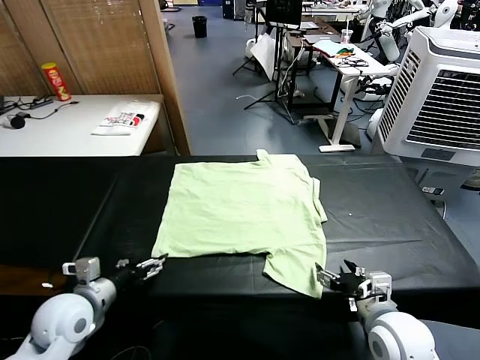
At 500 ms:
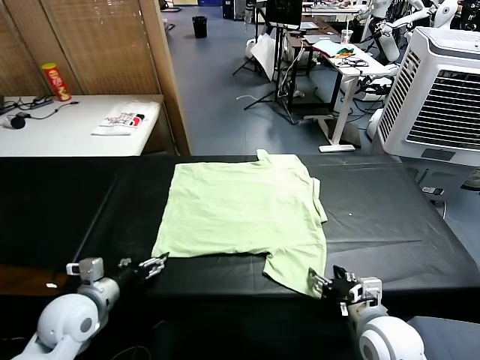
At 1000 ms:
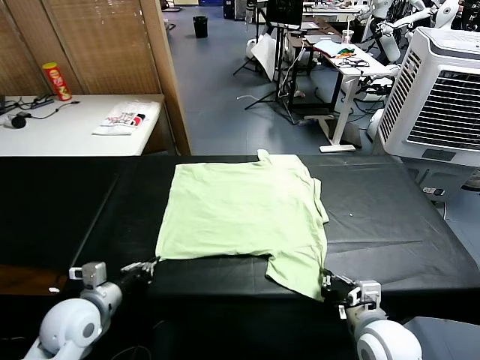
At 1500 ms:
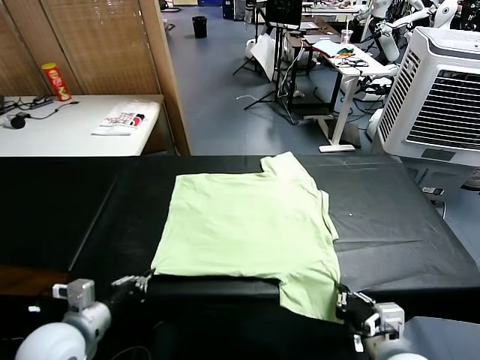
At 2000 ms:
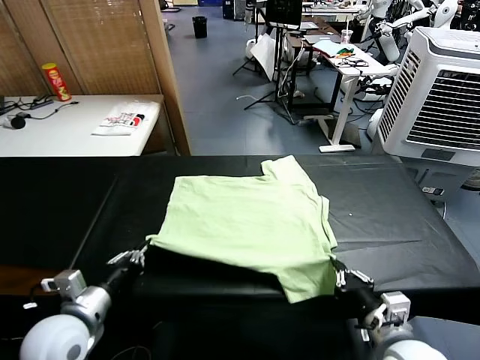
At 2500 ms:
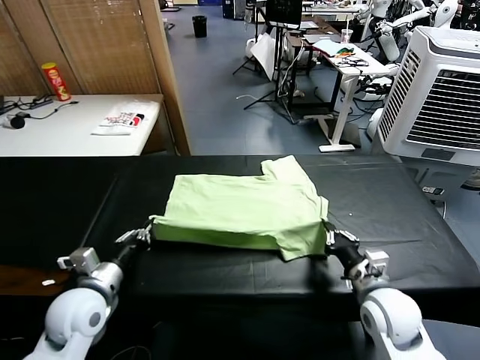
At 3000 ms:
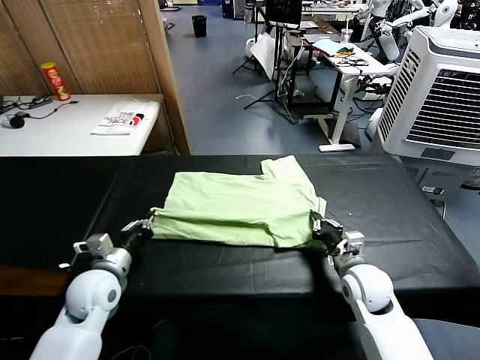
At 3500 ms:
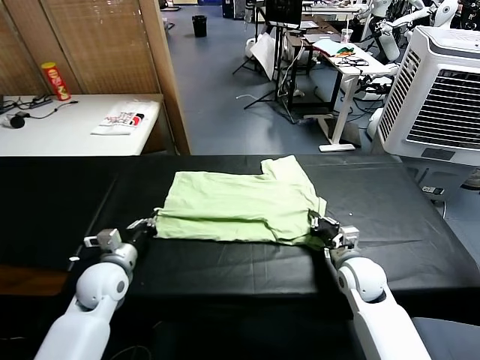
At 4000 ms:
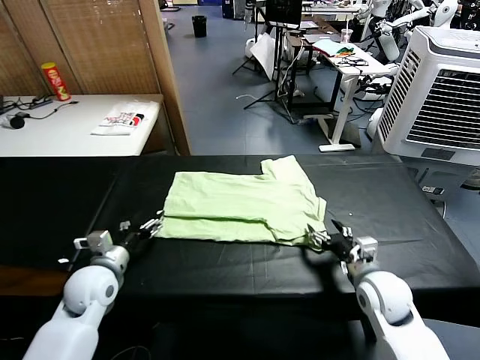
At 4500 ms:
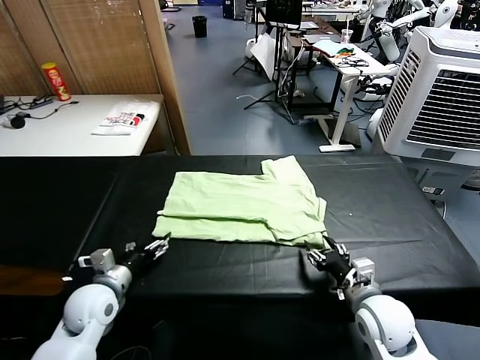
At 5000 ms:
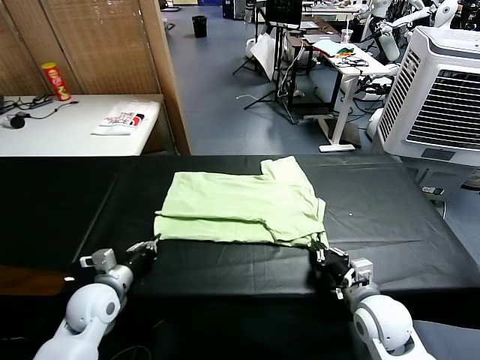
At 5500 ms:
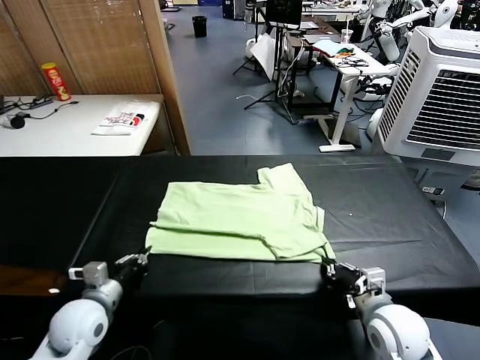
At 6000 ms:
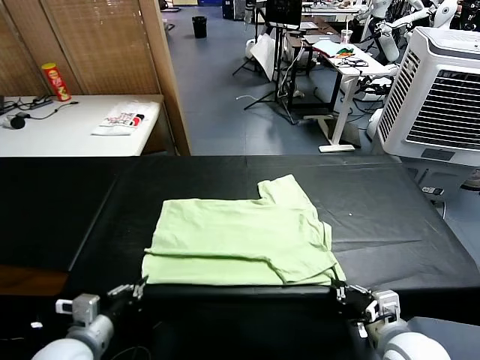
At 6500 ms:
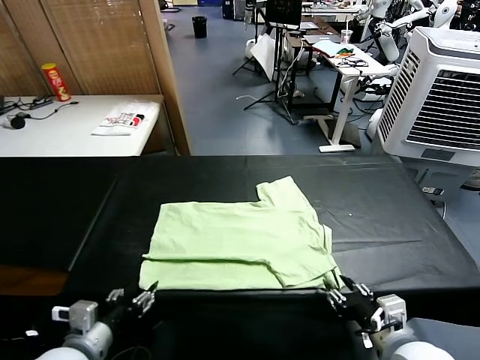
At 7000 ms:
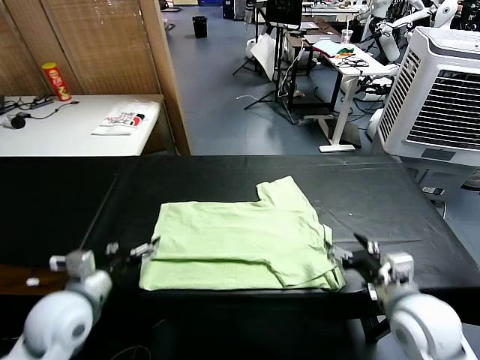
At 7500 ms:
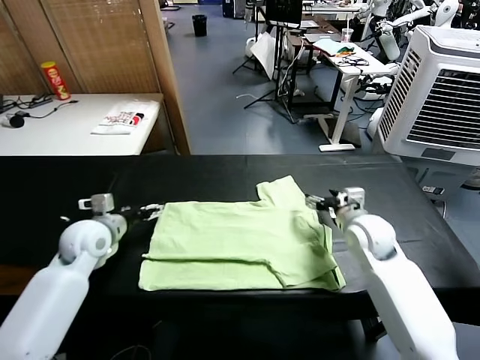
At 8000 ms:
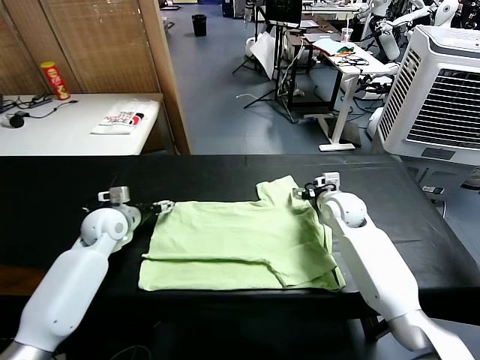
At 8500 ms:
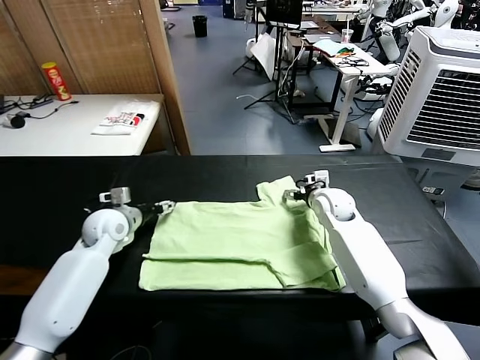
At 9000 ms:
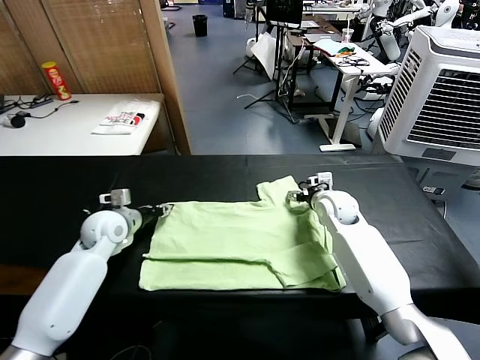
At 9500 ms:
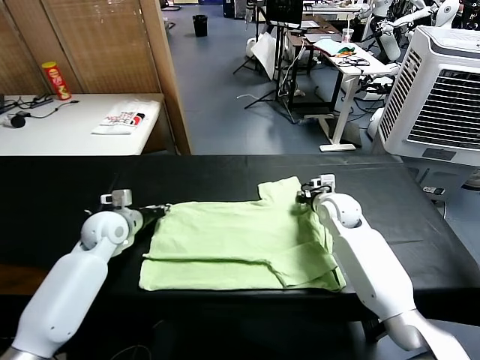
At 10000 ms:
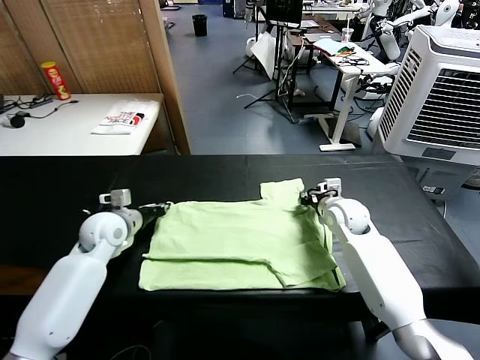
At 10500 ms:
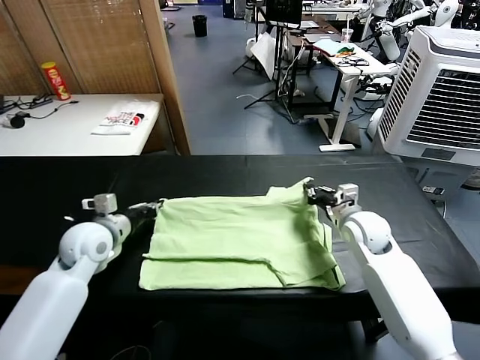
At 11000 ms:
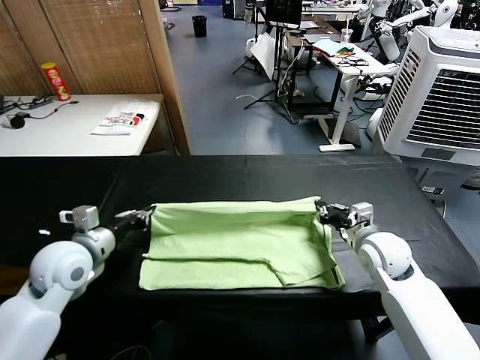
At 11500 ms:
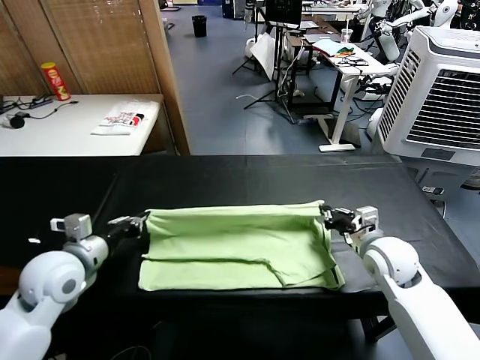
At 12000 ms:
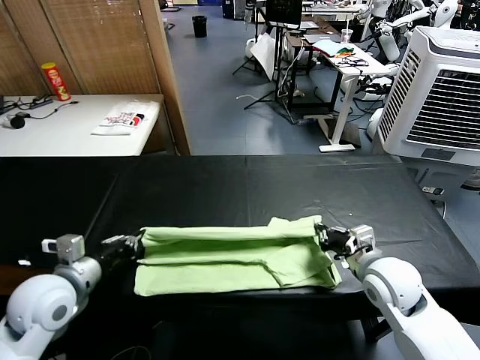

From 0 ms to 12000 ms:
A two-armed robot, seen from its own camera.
Task of the whole recording: fold and organize the clothes.
Step, from 0 ms to 1000 ms: use both grippers simultaneously to clamp the lower edge of the clothing fabric.
Step, from 1500 ms to 4000 ms: use both grippers to drag the lower edge of the fabric forward and fold it over the upper edge.
Step, from 4500 ms to 6500 ms: Drag the clothes downward with both gripper.
Step, from 7000 ms to 9000 ms: use both grippers simultaneously to clamp the upper edge of the clothing fabric.
From 2000 ms to 4000 ms: The right gripper shifts approximately 5 cm forward, and opens its fingers. The left gripper is displaced forward and downward by about 10 cm, and opens up.
From 4000 ms to 6000 ms: Both grippers move backward, some 10 cm. The right gripper closes up. Meanwhile the left gripper closes.
From 6000 ms to 8000 ms: Both grippers move forward, some 30 cm. The right gripper opens up. Meanwhile the left gripper opens up.
From 8000 ms to 10000 ms: The right gripper closes up, while the left gripper closes.
From 10000 ms to 12000 ms: The two grippers go approximately 20 cm backward.

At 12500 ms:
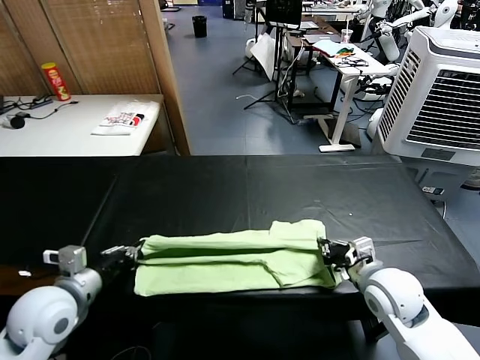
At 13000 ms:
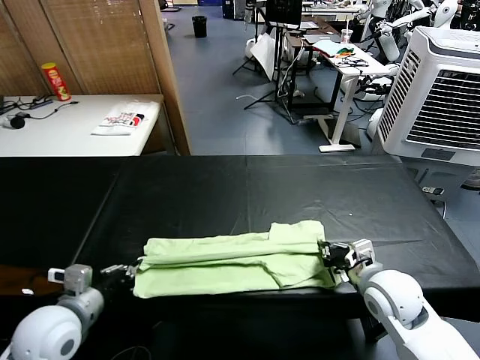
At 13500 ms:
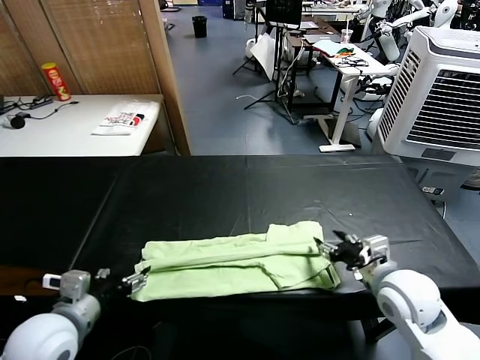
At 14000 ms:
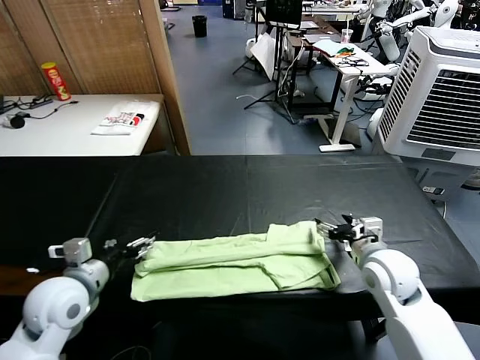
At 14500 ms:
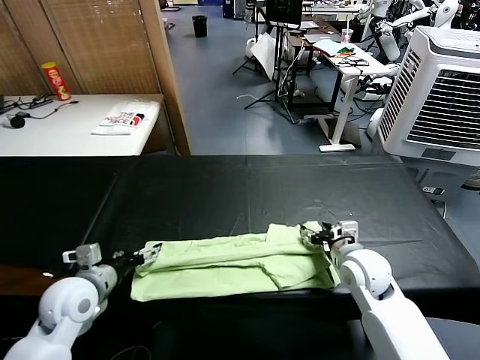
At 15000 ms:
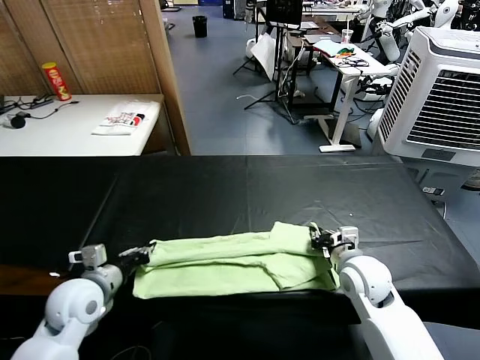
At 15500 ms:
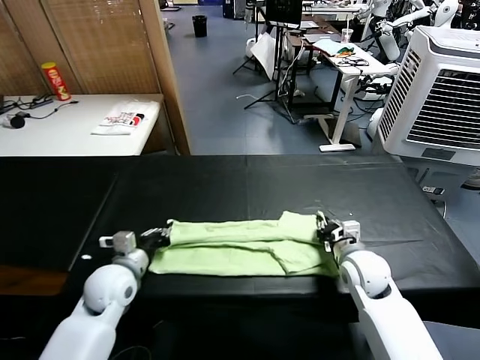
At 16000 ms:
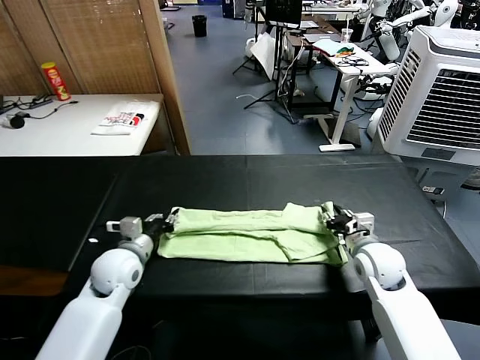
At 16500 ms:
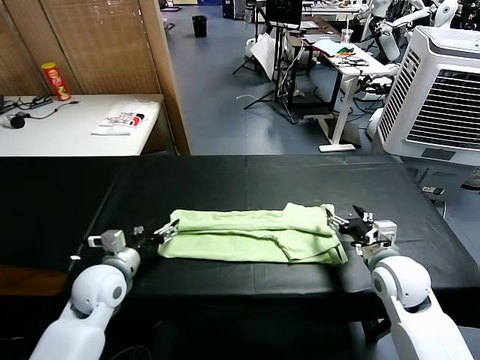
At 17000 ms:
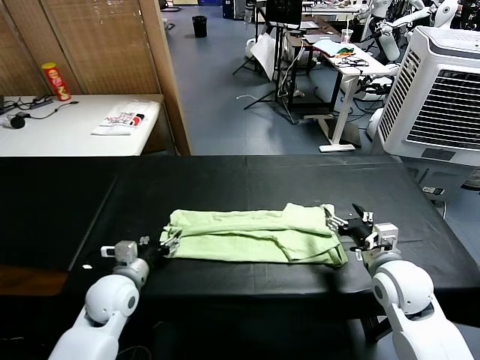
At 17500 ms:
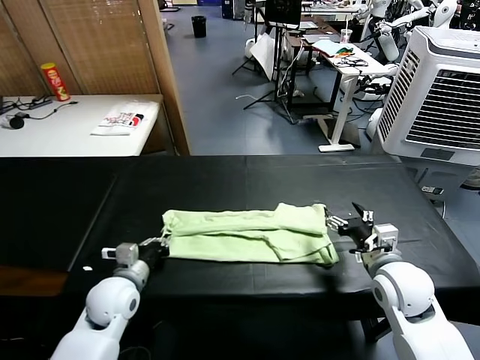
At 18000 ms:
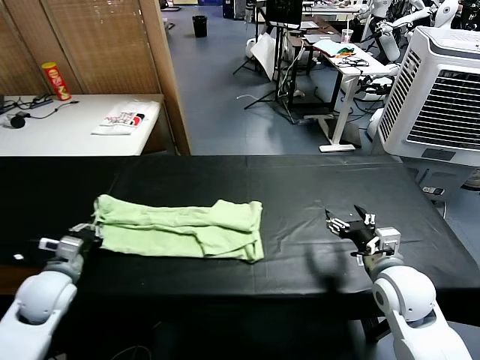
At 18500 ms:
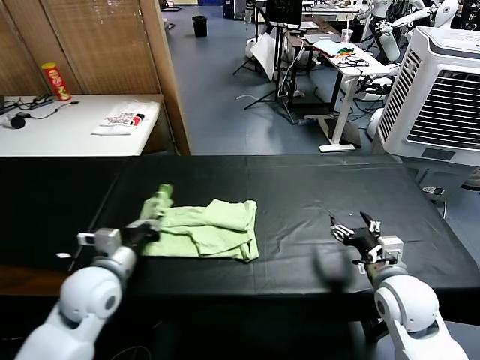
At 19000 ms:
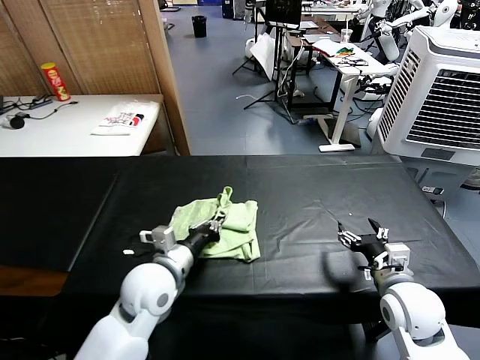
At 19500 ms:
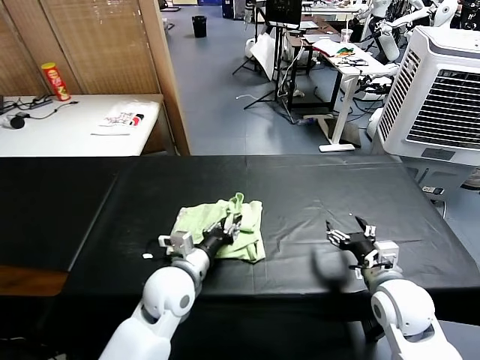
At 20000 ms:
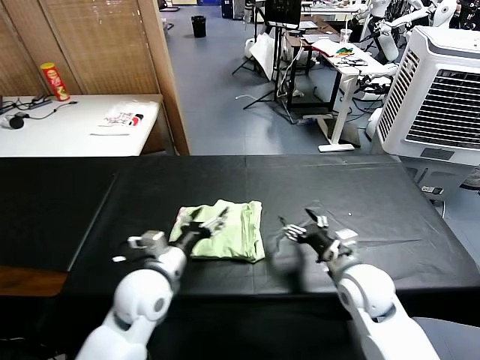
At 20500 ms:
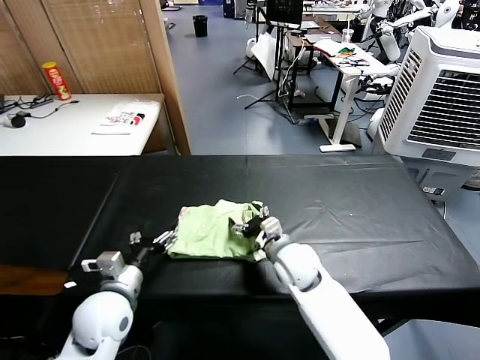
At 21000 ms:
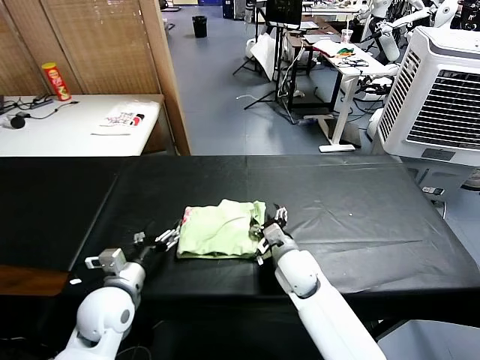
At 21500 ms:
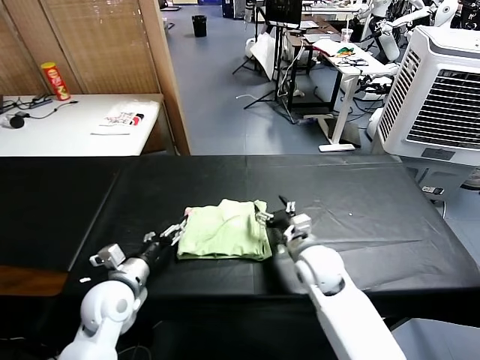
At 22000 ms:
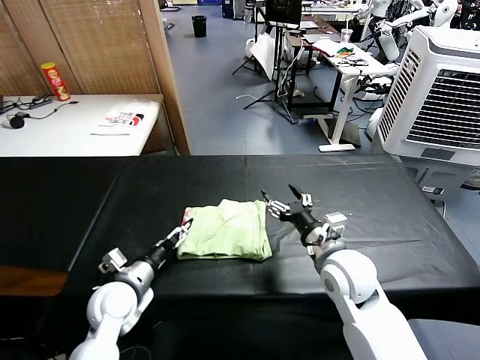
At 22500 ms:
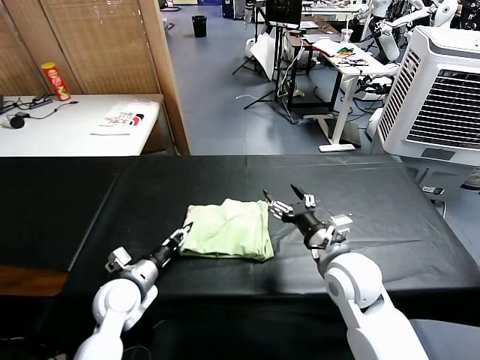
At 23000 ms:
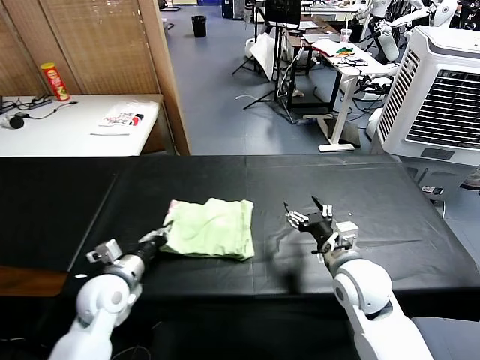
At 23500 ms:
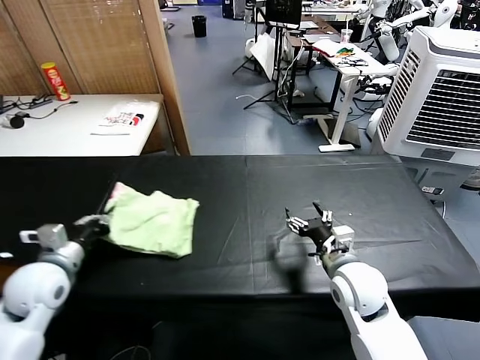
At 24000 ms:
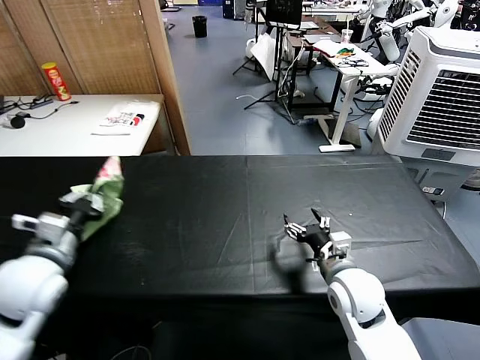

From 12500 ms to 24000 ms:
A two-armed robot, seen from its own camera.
Task of the whole recording: fold and organize the clothes.
Step, from 14000 ms to 17000 ms: use the left gripper to clamp the left edge of the fabric.
Step, from 17500 ms to 19500 ms: use the left gripper to drag the left edge of the fabric to the left and folds it over the right edge.
From 12500 ms to 14500 ms: The right gripper goes some 5 cm forward, and opens its fingers; the left gripper travels downward by about 5 cm, and opens.
From 14500 ms to 16500 ms: The right gripper travels to the right by roughly 5 cm, and closes, then reopens, while the left gripper closes and opens again.
From 16500 ms to 18500 ms: The left gripper goes to the left and returns, about 10 cm each way, and closes up.
From 18500 ms to 20000 ms: The right gripper goes about 5 cm to the left, while the left gripper travels to the right by roughly 10 cm, and opens.
From 20000 ms to 22000 ms: The right gripper goes to the left and returns, about 10 cm each way. The left gripper travels to the left and downward by about 10 cm.
From 22000 ms to 24000 ms: The left gripper goes roughly 20 cm upward and to the left, and closes up.

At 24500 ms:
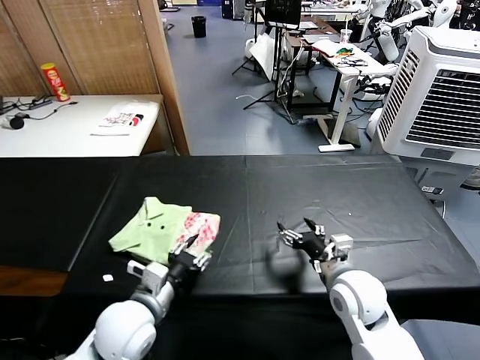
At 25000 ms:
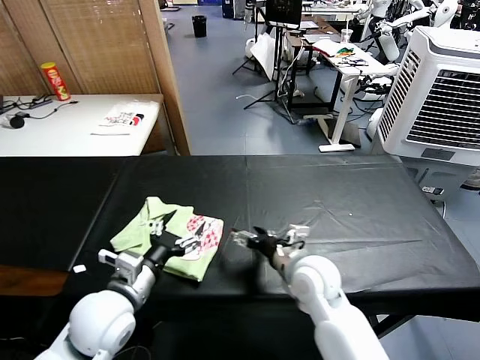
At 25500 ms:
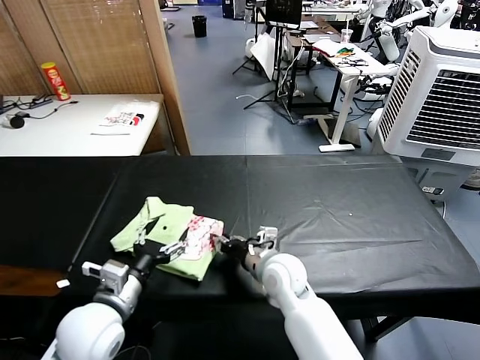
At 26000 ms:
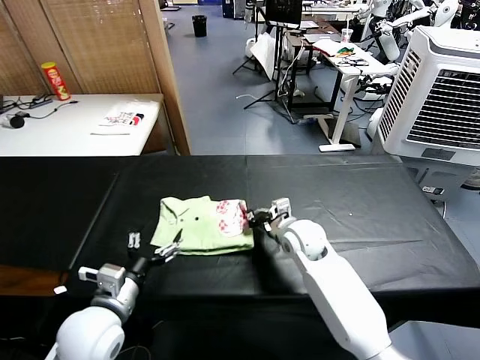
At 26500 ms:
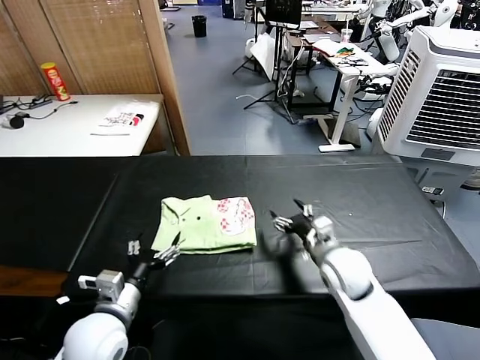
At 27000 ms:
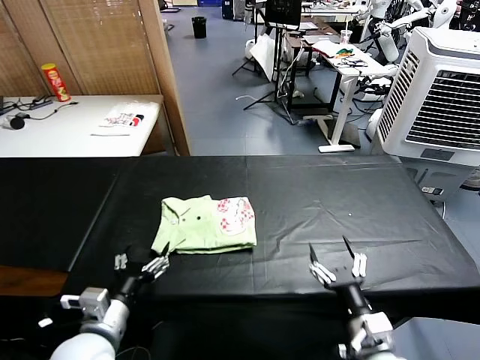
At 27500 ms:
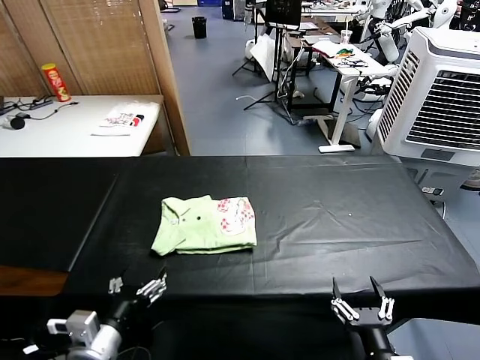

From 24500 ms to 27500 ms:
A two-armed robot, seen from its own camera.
Task of the whole recording: fold and organize the clothes.
Step, from 25000 ms to 26000 ms: Drag the clothes to the center of the table.
From 24500 ms to 26000 ms: The right gripper heads forward and to the left, covering approximately 15 cm, and closes; the left gripper changes place by about 5 cm, and opens its fingers.
From 26000 ms to 27500 ms: The right gripper is displaced backward by approximately 35 cm, and opens up, while the left gripper shifts some 10 cm backward.
